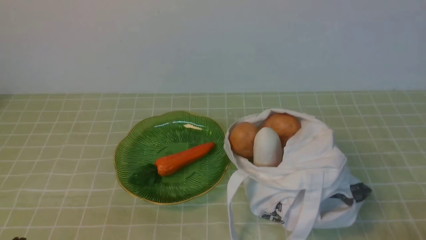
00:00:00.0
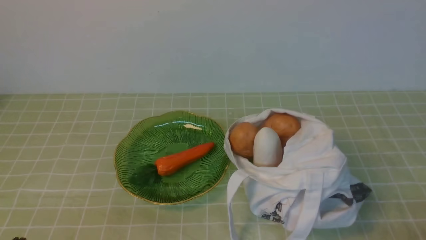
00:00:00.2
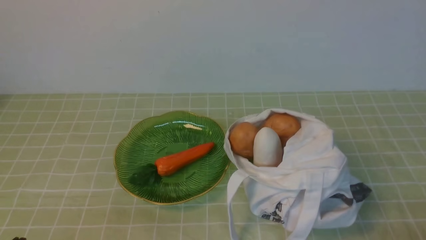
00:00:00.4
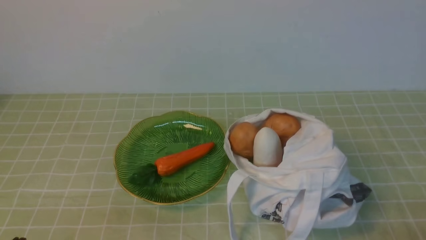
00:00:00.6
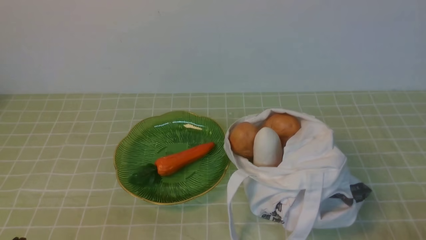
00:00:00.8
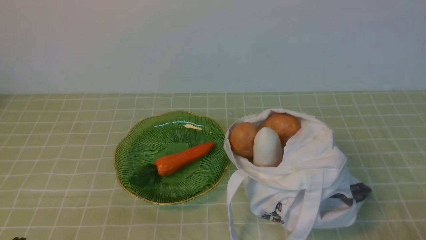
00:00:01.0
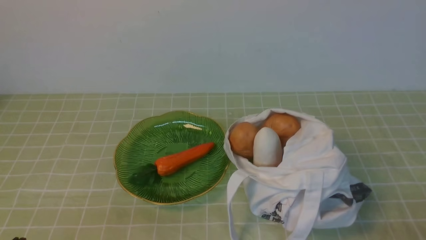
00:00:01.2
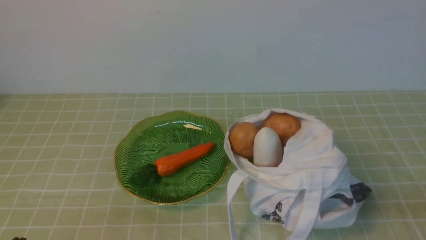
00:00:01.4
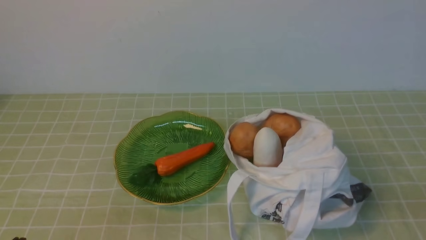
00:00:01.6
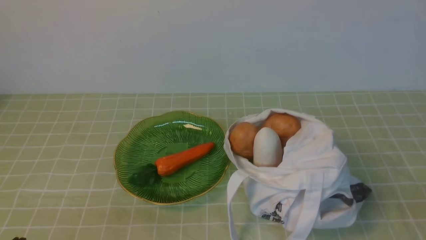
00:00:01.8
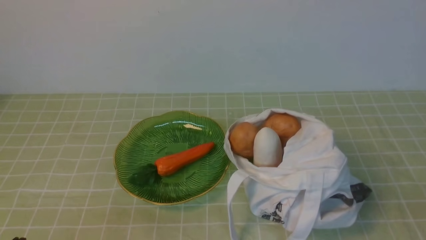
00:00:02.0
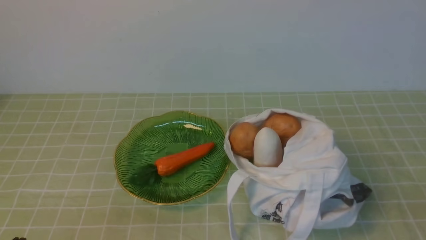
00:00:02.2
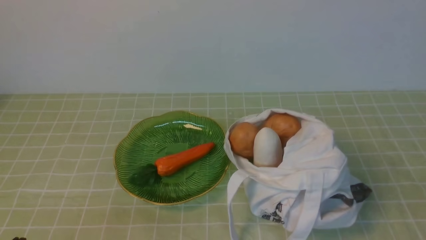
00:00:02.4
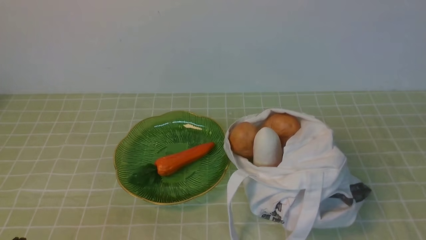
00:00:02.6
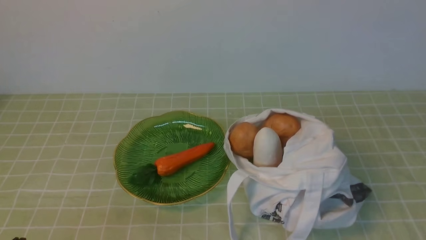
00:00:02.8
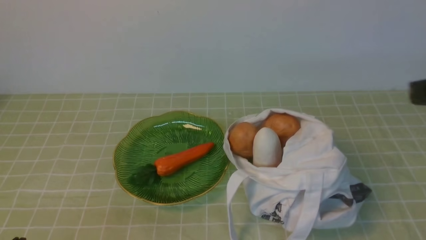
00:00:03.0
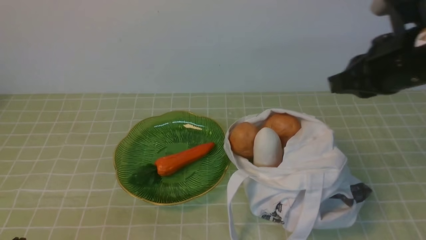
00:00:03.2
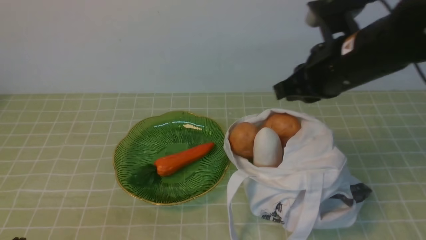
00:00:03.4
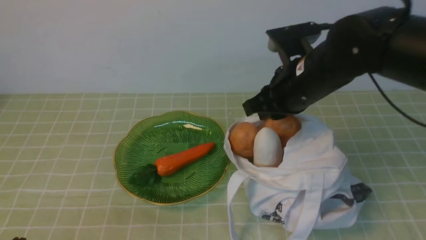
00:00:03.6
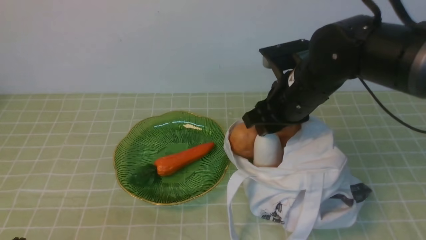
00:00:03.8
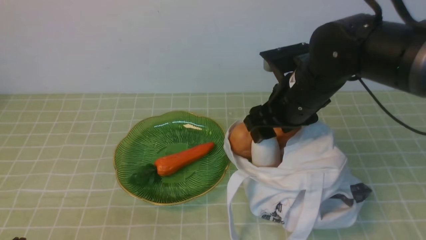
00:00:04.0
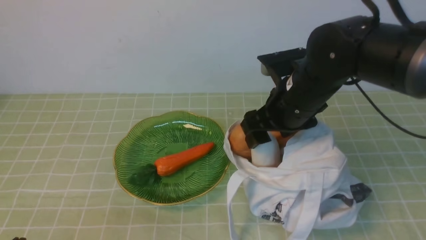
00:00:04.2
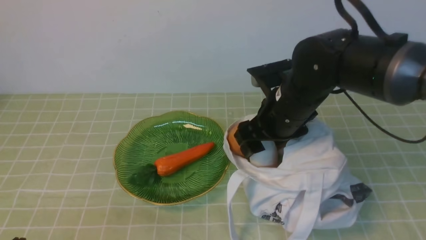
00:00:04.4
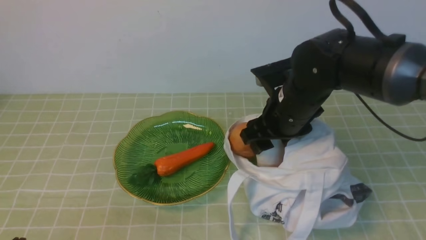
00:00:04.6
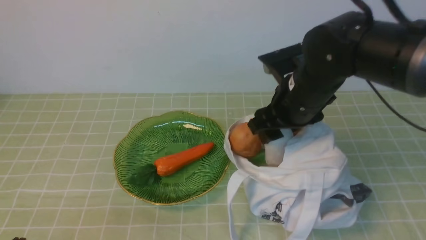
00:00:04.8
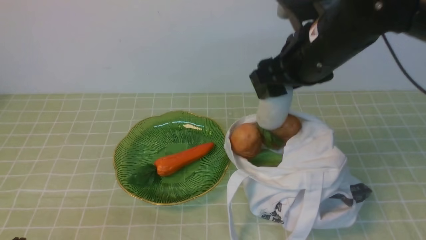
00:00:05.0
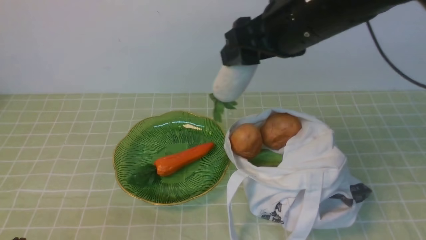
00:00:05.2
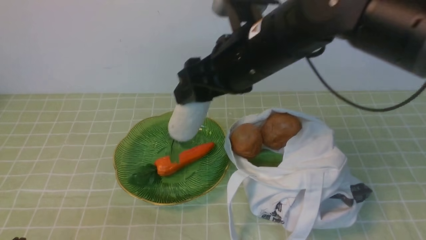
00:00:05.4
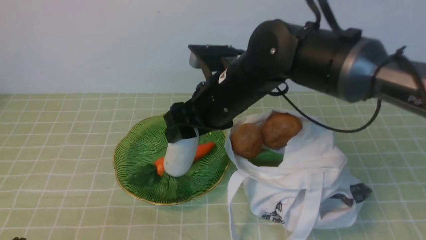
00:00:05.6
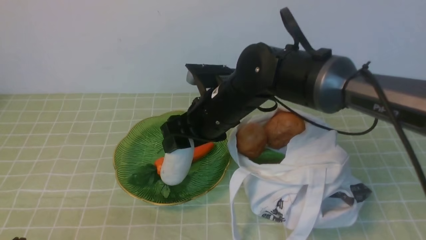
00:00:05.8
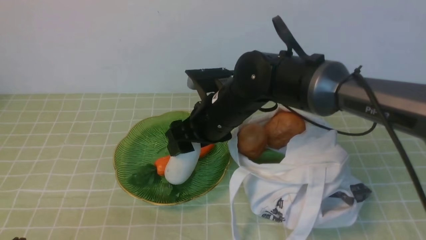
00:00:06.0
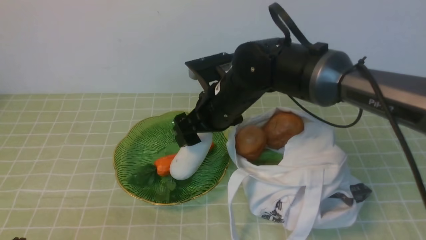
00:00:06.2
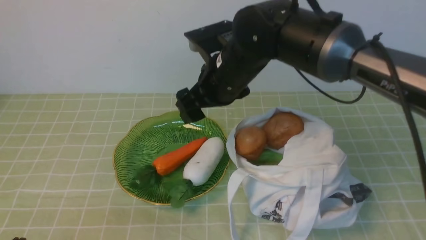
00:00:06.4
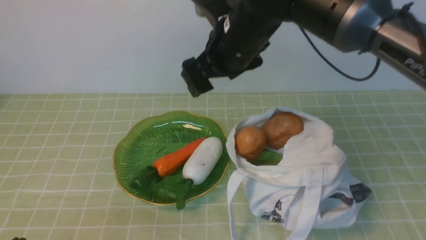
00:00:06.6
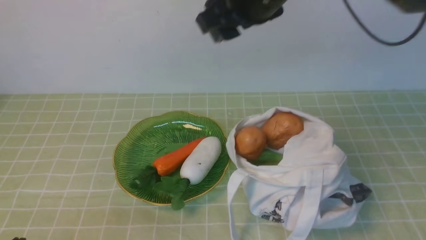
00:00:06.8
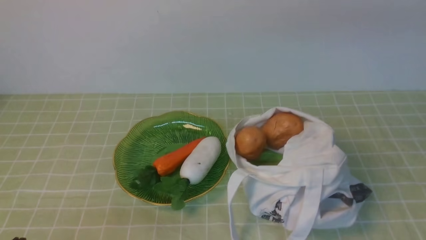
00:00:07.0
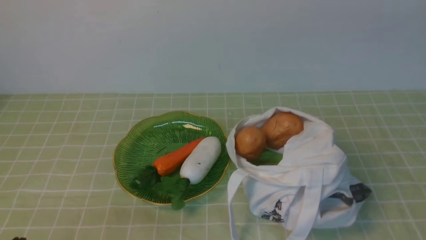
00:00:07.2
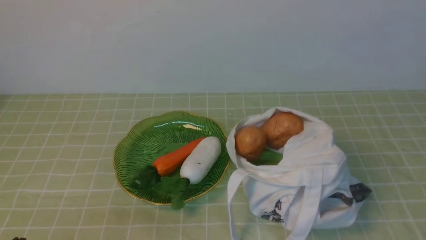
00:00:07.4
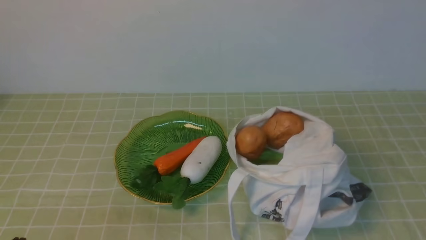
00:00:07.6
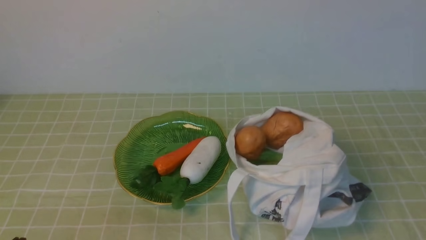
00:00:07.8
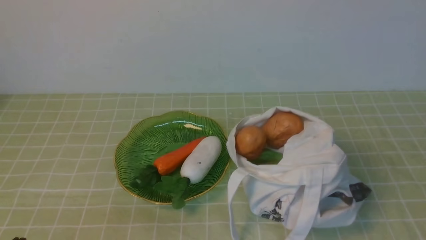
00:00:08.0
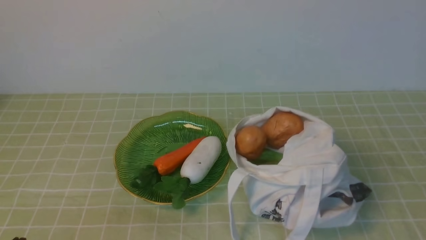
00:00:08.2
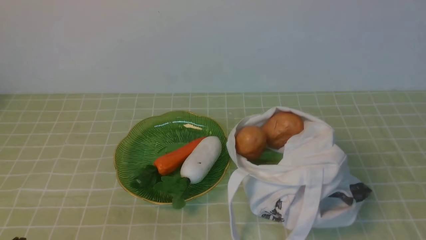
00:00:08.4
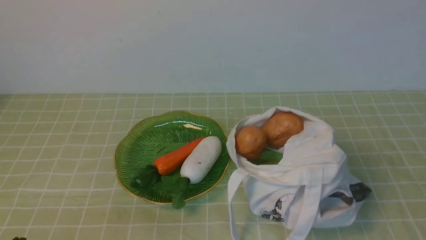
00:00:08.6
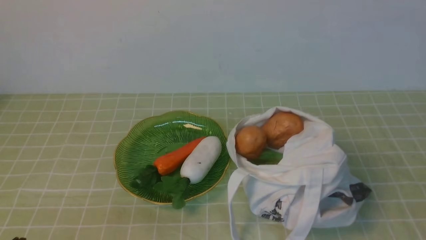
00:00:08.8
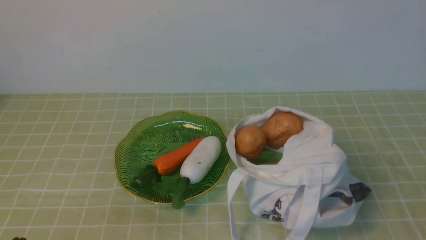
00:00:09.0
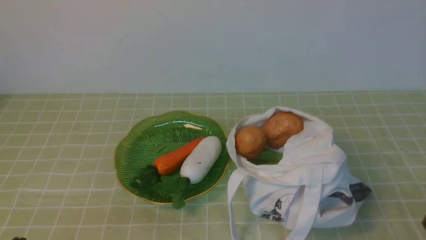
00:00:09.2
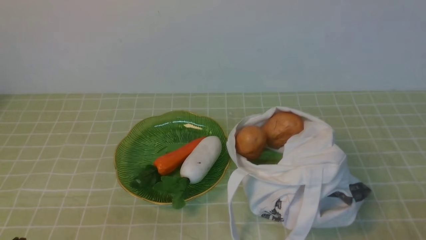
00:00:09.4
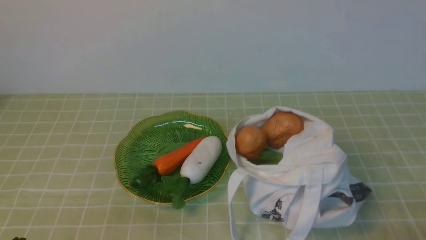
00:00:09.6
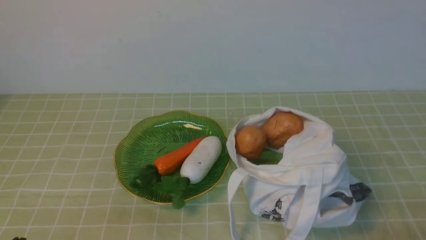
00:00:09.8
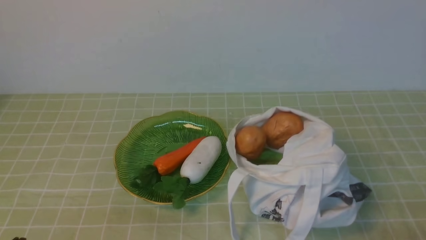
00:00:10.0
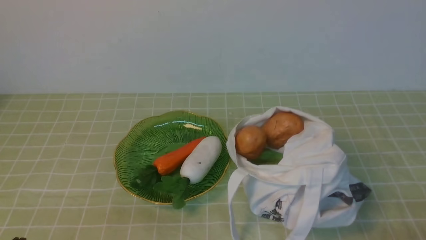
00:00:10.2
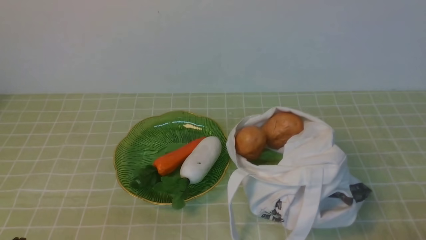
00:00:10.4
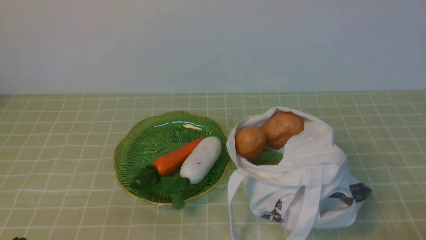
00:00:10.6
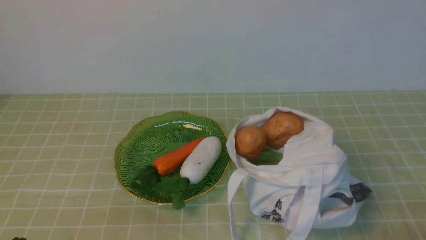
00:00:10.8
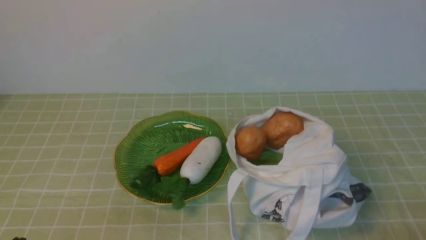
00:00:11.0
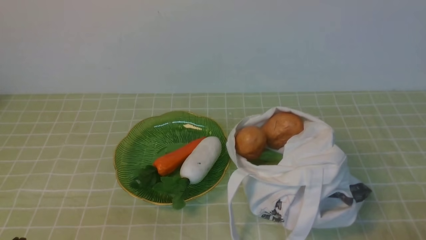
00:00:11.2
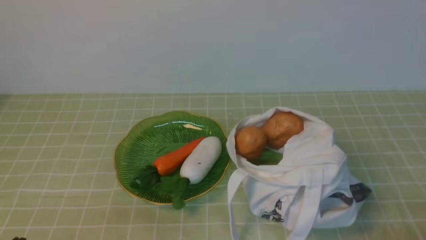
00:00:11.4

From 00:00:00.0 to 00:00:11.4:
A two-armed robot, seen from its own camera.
Task of the whole recording: take vegetables from bag on green coffee tablecloth place on plate.
Step, from 00:00:00.0 to 00:00:04.4: Grasp the radish with right gripper.
Step, from 00:00:04.6 to 00:00:06.4: Place the radish on the plate with right gripper.
From 00:00:02.8 to 00:00:04.2: The right gripper moves forward, to the left and downward, about 30 cm, and opens.
From 00:00:04.2 to 00:00:05.6: The right gripper moves to the left, about 10 cm.
From 00:00:05.6 to 00:00:07.2: The right gripper heads upward, to the right and backward, covering roughly 30 cm, and closes.
From 00:00:10.0 to 00:00:11.4: The two grippers keep their place.

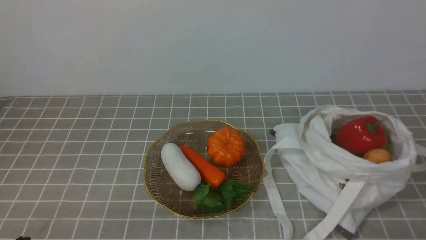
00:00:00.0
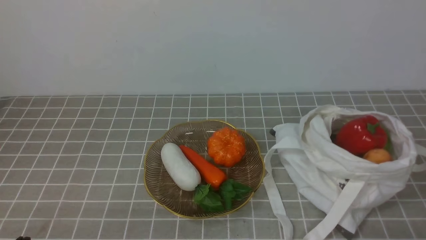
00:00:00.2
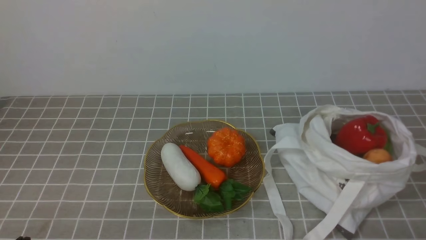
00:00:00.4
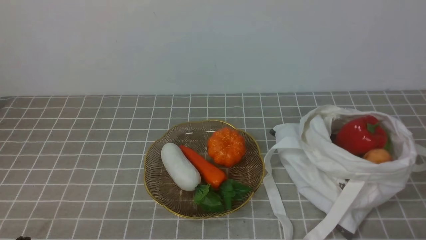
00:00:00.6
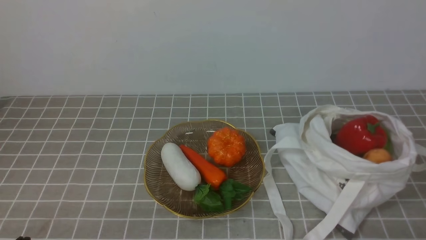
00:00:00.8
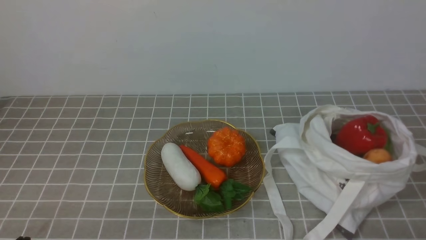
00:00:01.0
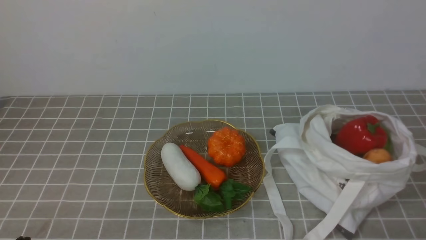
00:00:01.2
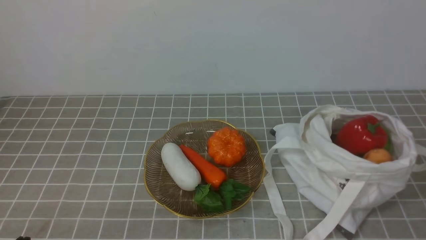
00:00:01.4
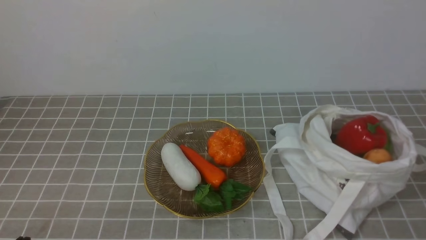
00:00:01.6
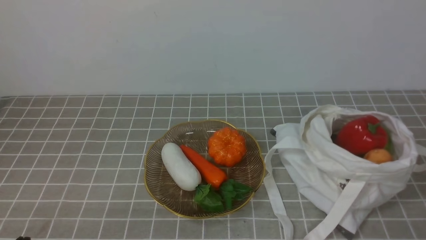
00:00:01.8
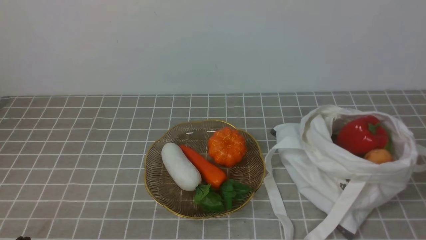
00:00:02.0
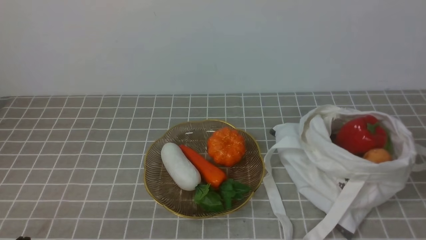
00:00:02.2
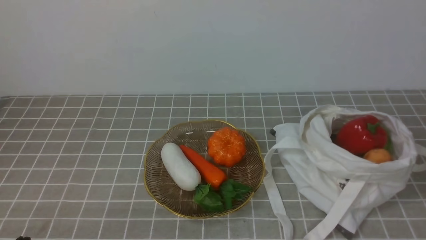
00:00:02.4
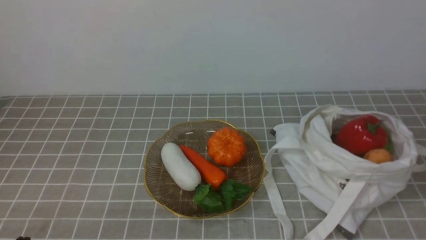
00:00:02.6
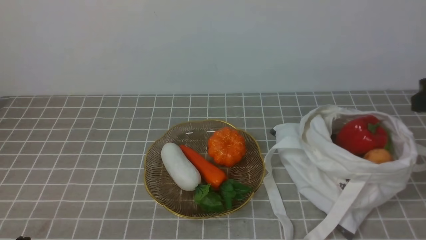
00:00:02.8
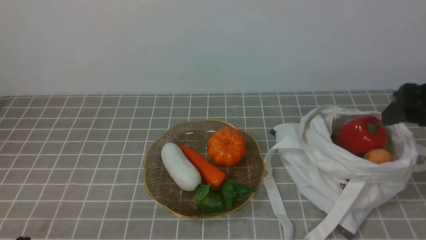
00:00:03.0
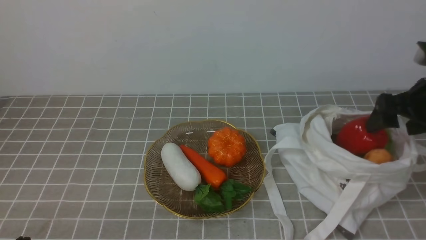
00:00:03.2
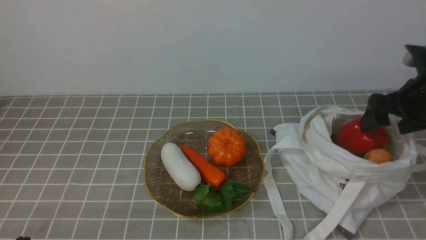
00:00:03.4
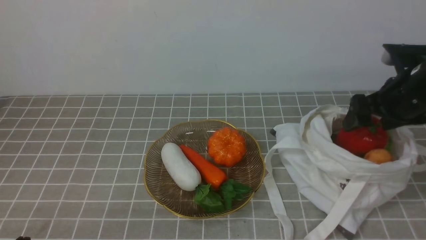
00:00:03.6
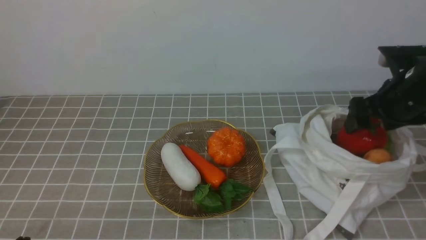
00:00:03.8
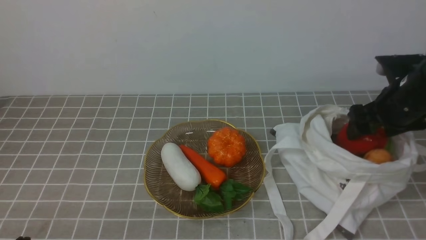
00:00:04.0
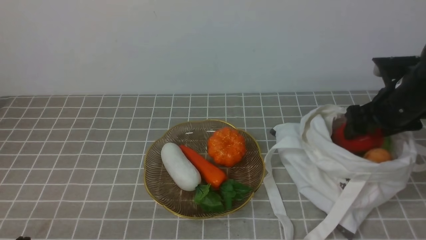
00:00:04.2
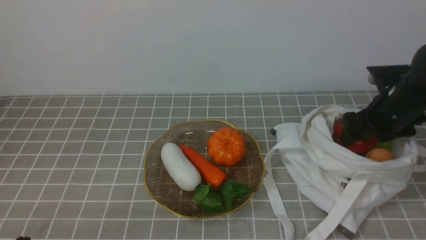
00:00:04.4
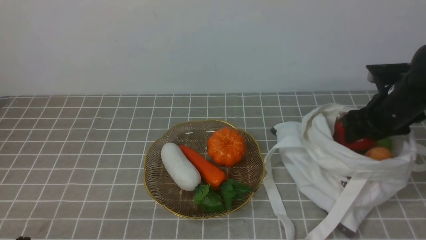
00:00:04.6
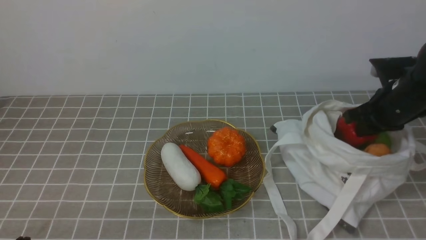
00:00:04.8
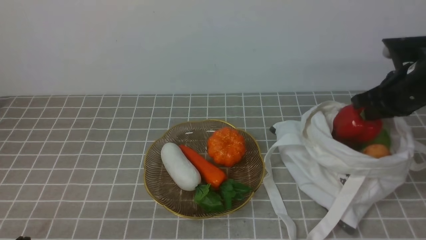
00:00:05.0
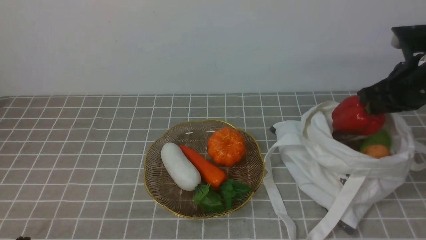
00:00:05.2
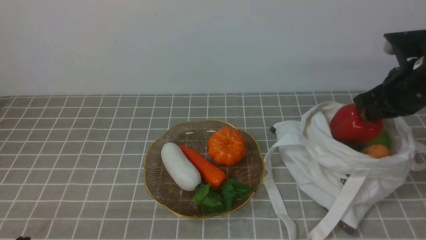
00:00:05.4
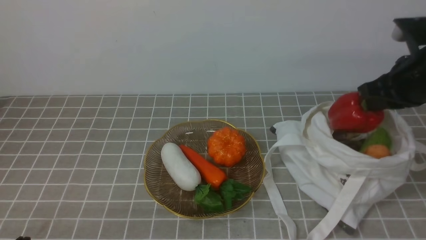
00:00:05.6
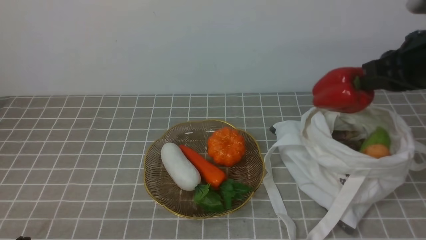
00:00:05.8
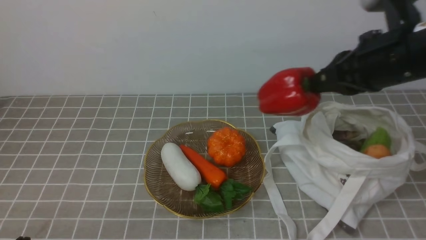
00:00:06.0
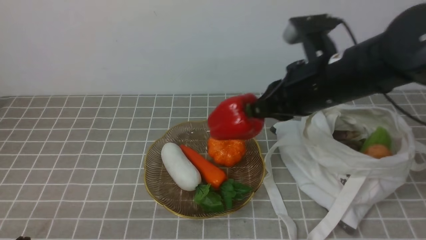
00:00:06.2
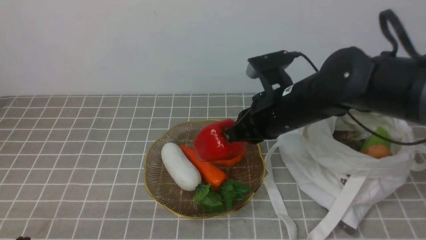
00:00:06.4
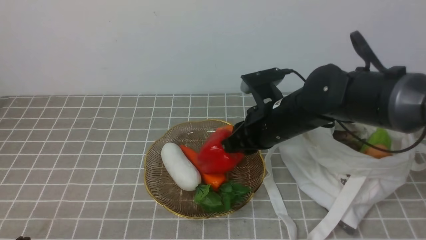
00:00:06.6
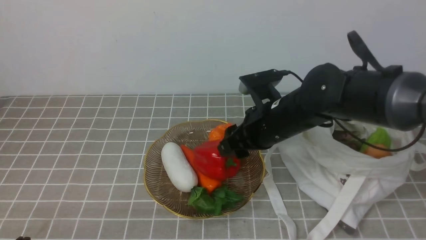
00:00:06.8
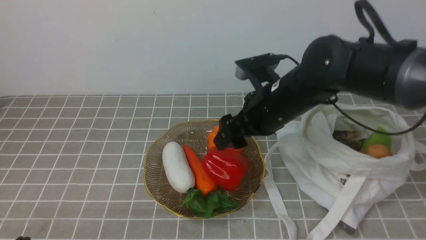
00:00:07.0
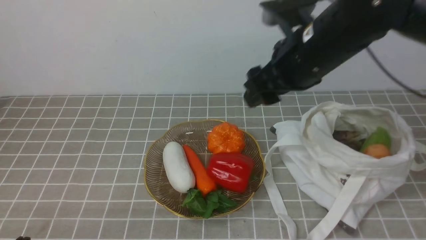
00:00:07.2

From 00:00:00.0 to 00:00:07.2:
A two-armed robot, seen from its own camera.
Task of the whole recording: take vegetables from bag on grey coffee tablecloth place on plate.
Step, from 00:00:00.0 to 00:00:04.8: Grasp the bell pepper with right gripper.
Step, from 00:00:05.0 to 00:00:07.0: Place the bell pepper on the plate with right gripper.
From 00:00:02.8 to 00:00:04.4: The right gripper is displaced downward and forward by about 20 cm, and opens.
From 00:00:04.4 to 00:00:05.8: The right gripper travels upward and backward by some 15 cm, and closes up.
From 00:00:05.8 to 00:00:07.2: The right gripper goes approximately 10 cm to the left, and opens.
